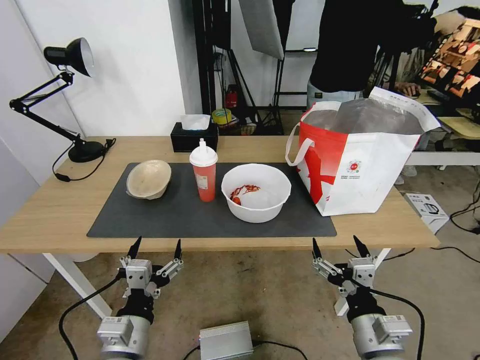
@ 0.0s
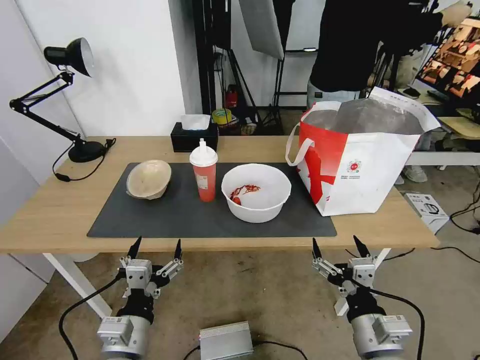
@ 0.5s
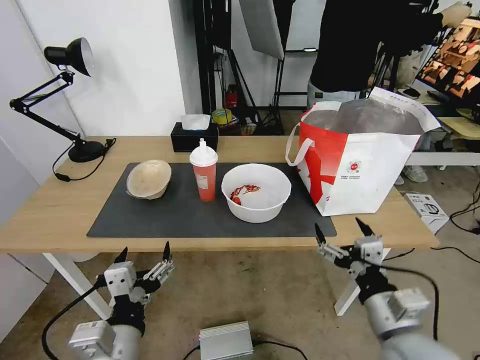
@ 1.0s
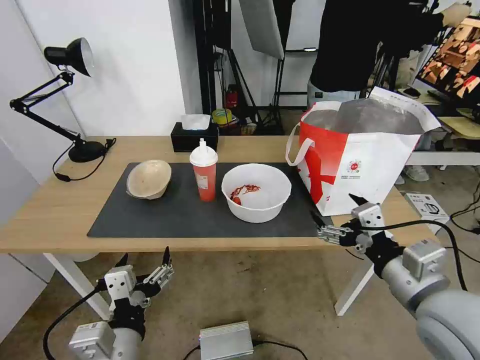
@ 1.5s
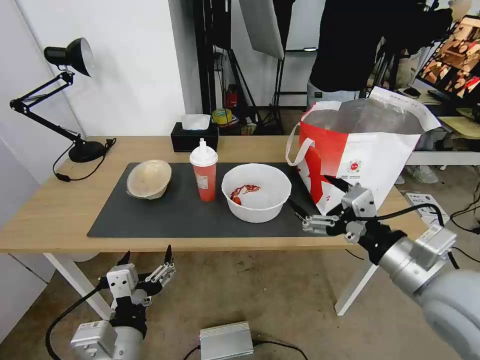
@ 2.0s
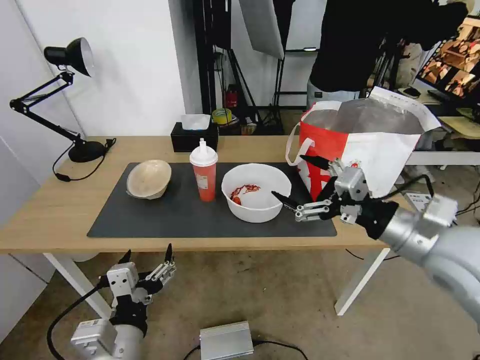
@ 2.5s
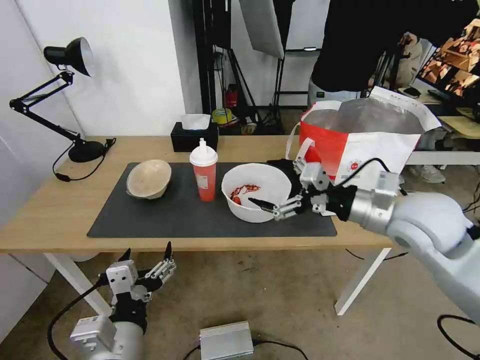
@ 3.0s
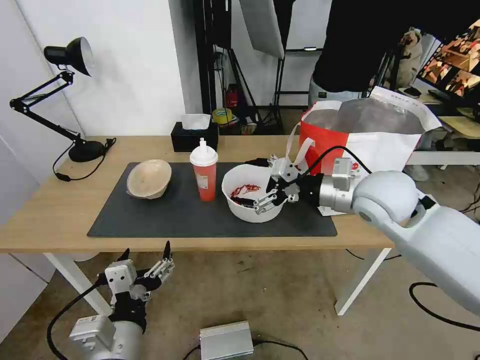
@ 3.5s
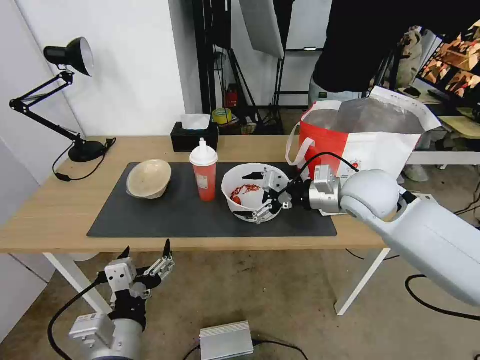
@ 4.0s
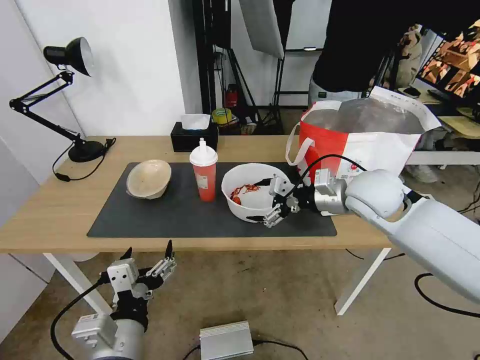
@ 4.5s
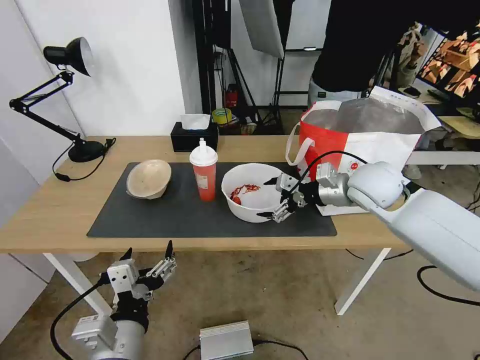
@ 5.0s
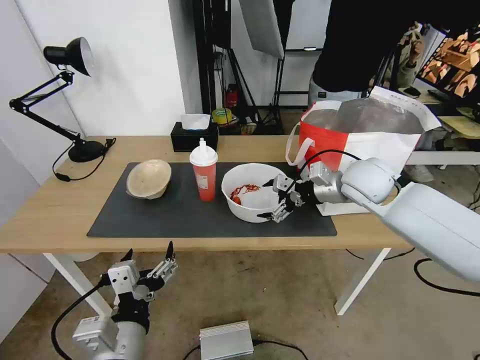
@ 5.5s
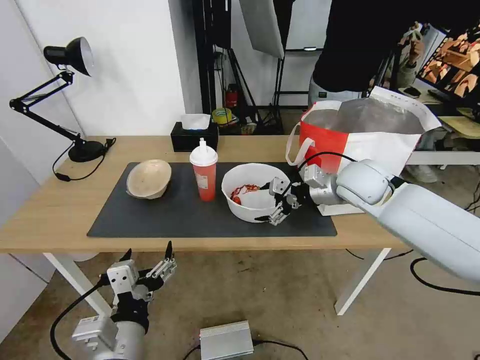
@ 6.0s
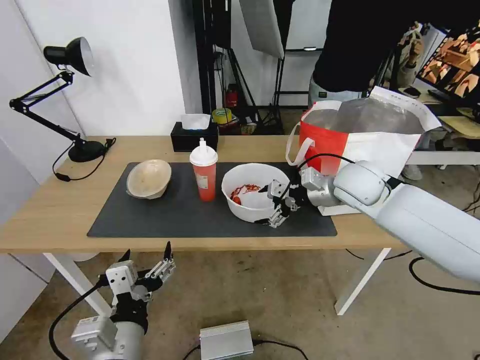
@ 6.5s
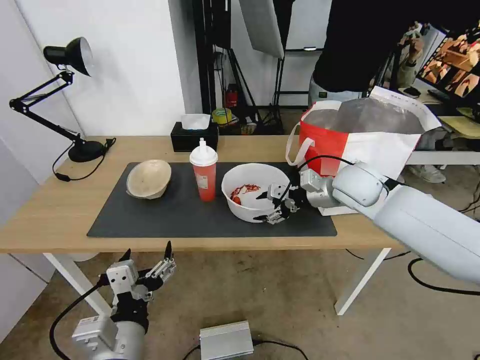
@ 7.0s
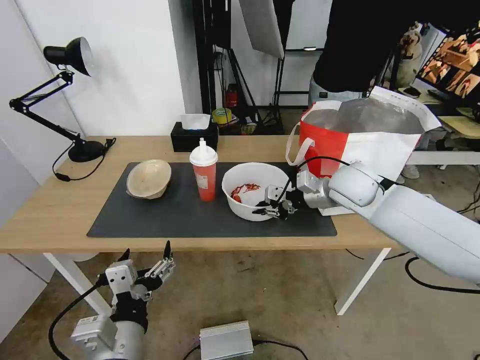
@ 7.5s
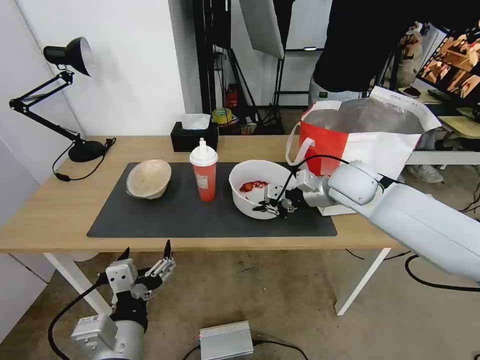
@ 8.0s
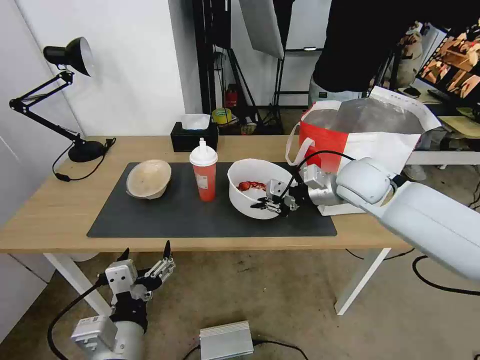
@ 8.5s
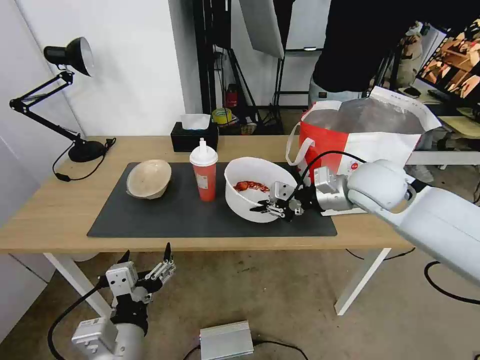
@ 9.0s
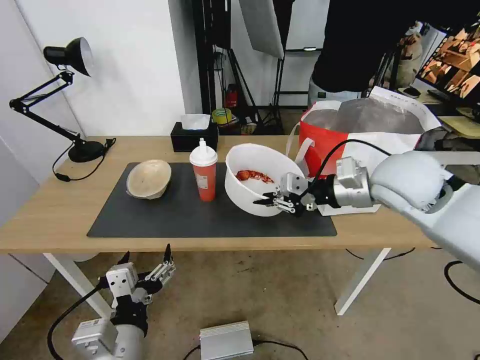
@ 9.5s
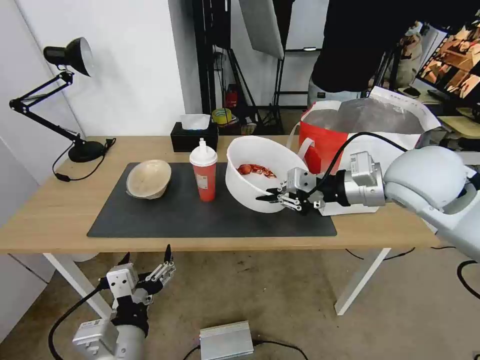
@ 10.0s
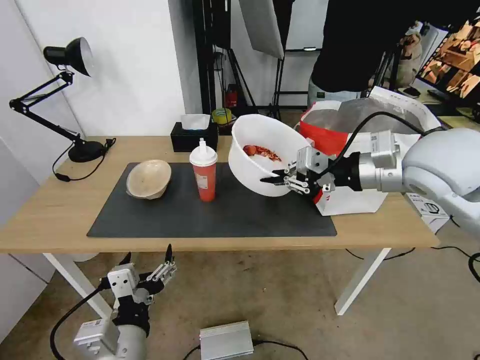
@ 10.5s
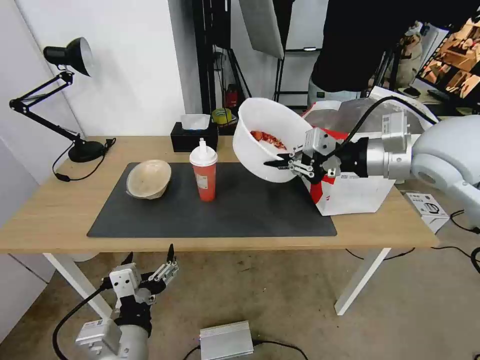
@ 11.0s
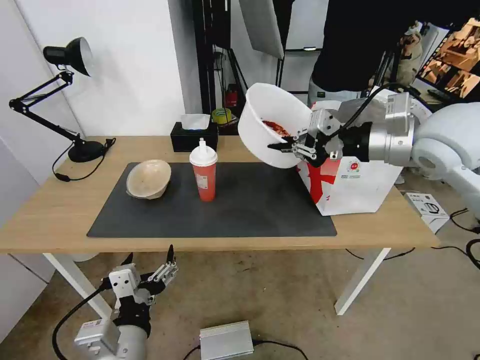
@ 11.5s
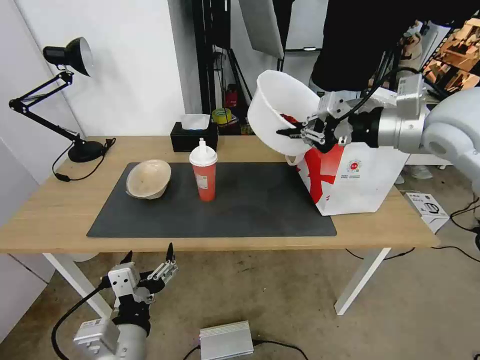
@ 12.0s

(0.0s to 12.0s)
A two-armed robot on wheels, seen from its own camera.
Task of the whole recording: Pick up the trash from the table and place it into the takeout bag.
2.0s - 4.0s: The right gripper heads forward, covering approximately 20 cm.
4.0s - 6.0s: The right gripper heads forward, covering roughly 5 cm.
6.0s - 8.0s: The right gripper closes.
8.0s - 10.0s: The right gripper moves upward and backward, about 15 cm.
10.0s - 12.0s: The right gripper moves upward, some 5 cm.

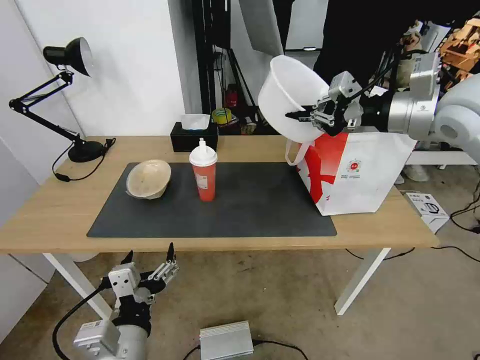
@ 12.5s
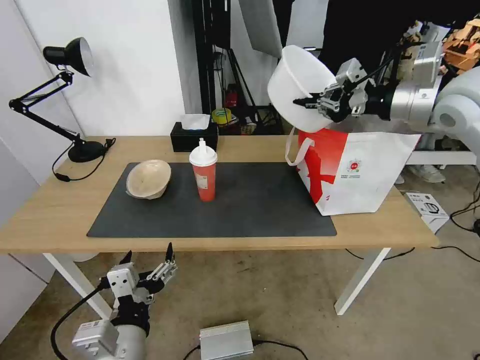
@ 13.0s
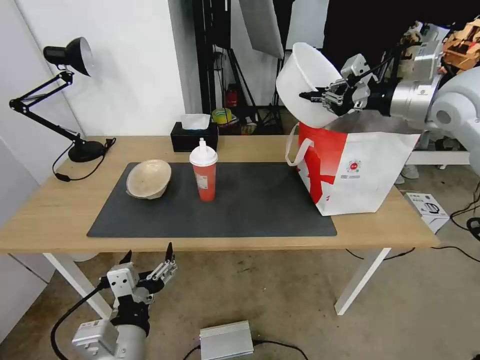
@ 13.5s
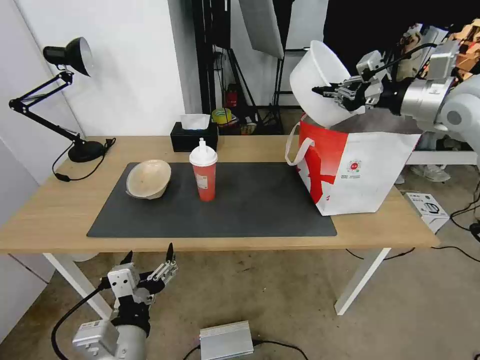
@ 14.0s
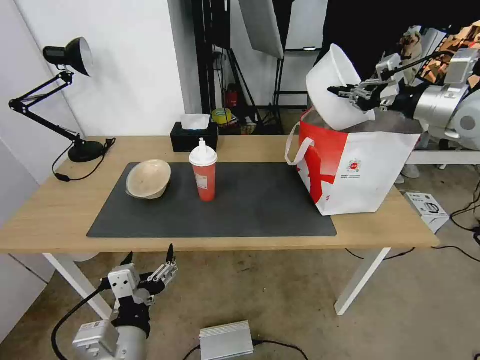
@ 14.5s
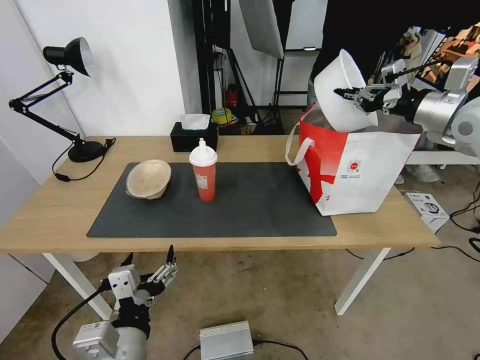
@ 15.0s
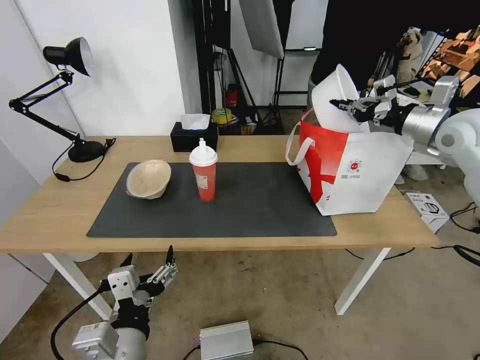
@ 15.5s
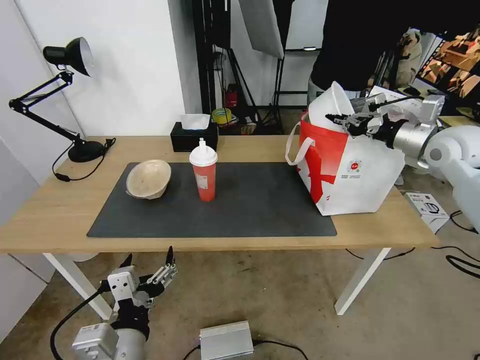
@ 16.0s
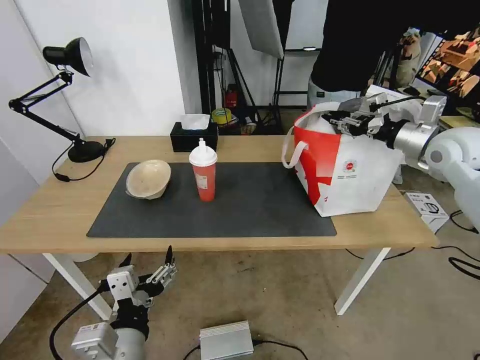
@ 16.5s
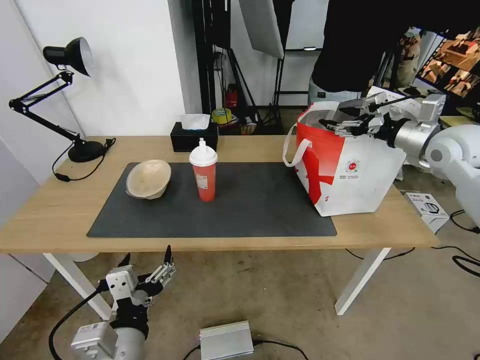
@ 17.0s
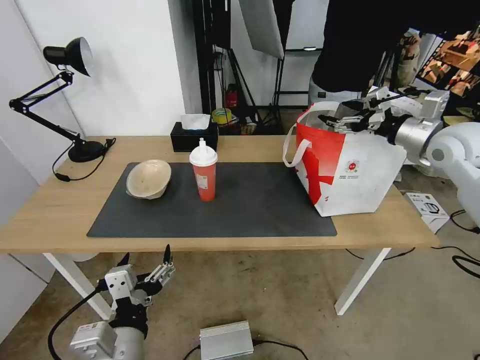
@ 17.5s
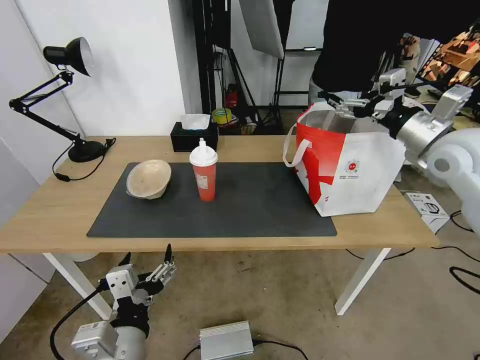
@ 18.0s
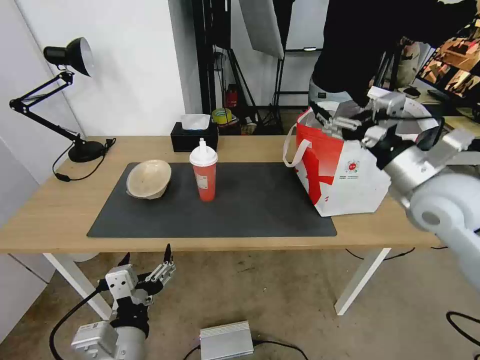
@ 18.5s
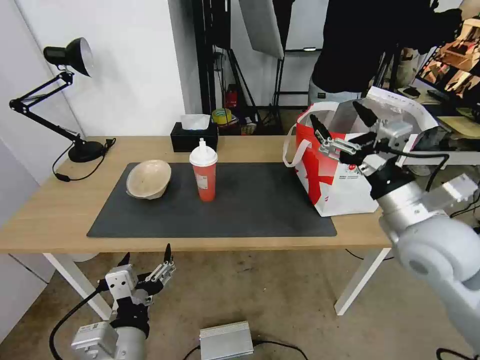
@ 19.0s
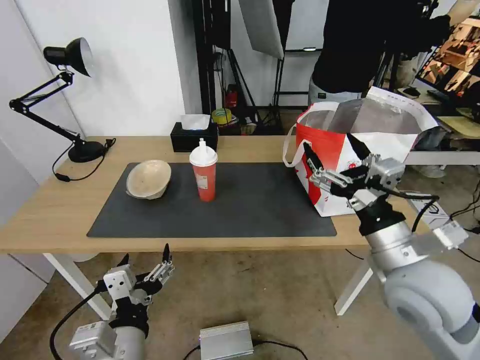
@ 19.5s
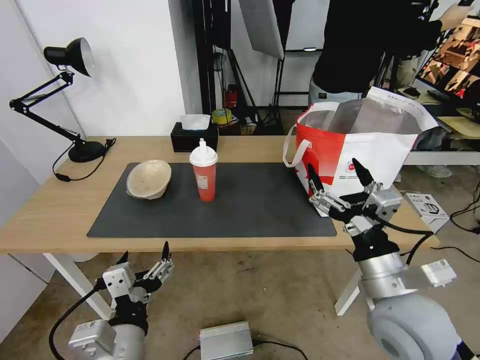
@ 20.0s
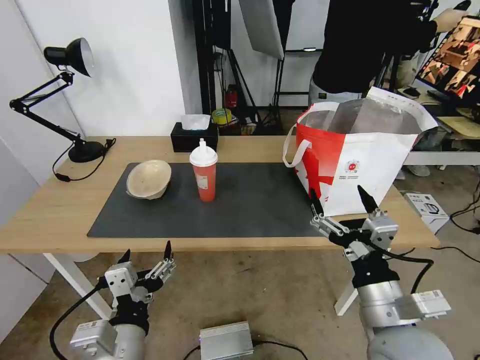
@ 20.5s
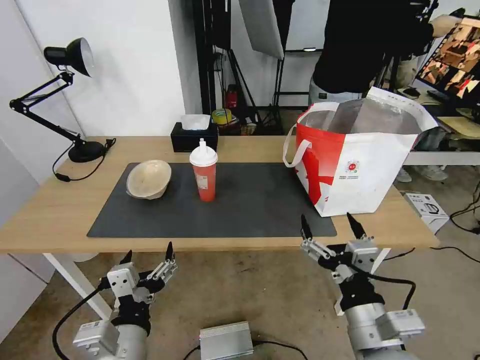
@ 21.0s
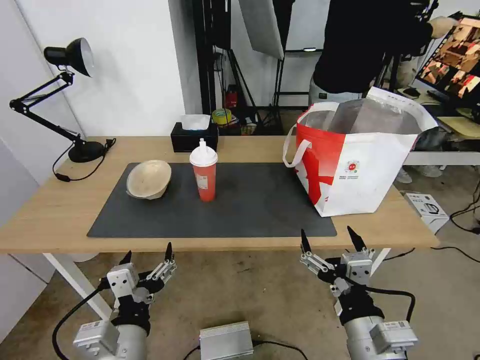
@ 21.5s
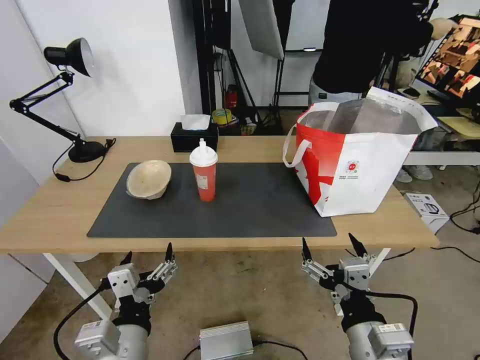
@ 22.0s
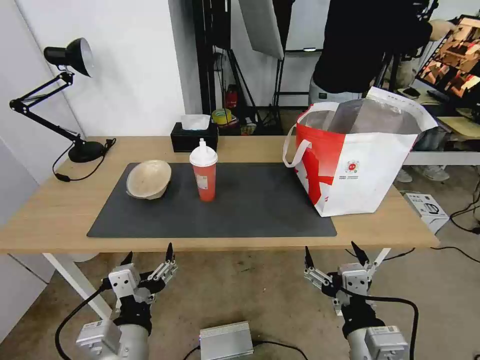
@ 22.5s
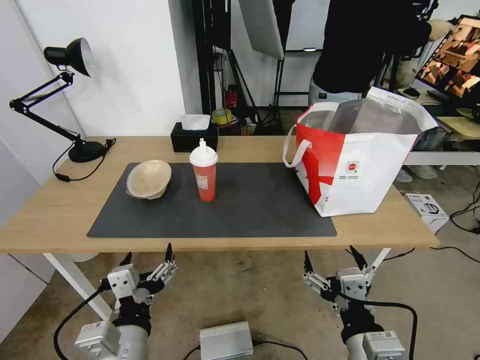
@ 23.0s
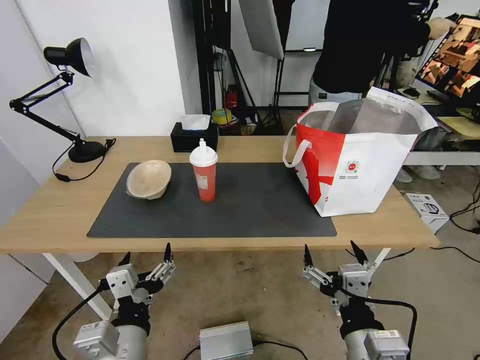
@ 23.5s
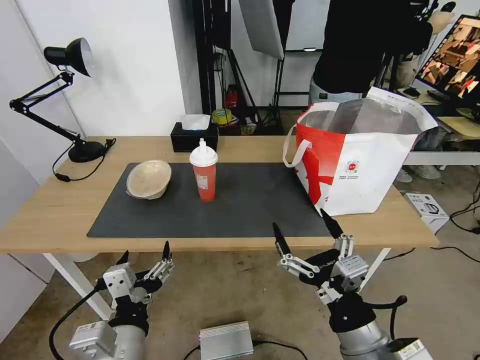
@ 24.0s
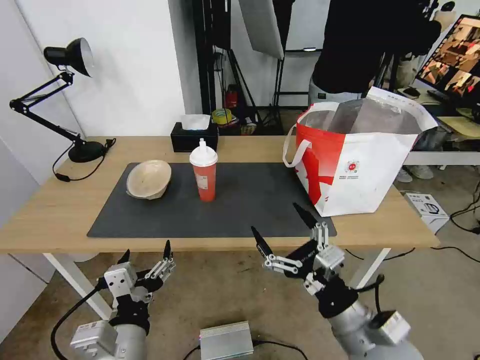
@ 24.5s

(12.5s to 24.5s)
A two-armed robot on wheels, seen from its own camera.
Task of the whole recording: Pick up the trash from the table and place it into the takeout bag.
12.5s - 14.5s: The right gripper shifts about 10 cm to the right and forward.
14.5s - 16.5s: The right gripper goes roughly 10 cm downward, and opens.
16.5s - 18.5s: The right gripper goes roughly 15 cm backward and to the left, and opens.
18.5s - 20.5s: The right gripper shifts roughly 25 cm backward, downward and to the left.
20.5s - 22.5s: The right gripper is displaced backward by about 5 cm.
22.5s - 24.5s: The right gripper travels forward by about 5 cm.

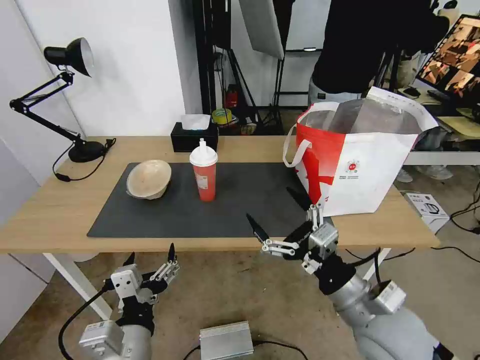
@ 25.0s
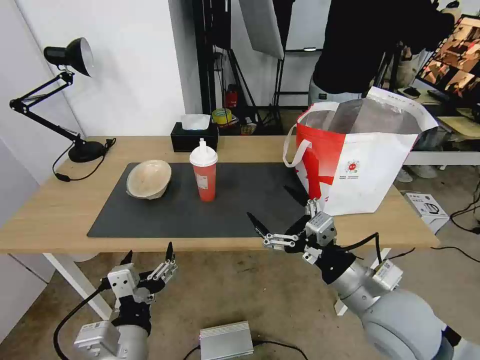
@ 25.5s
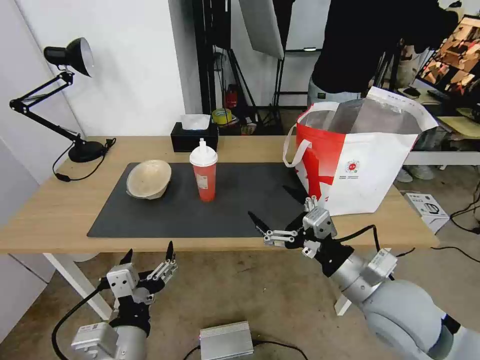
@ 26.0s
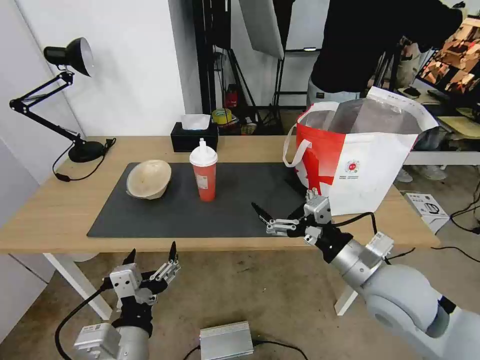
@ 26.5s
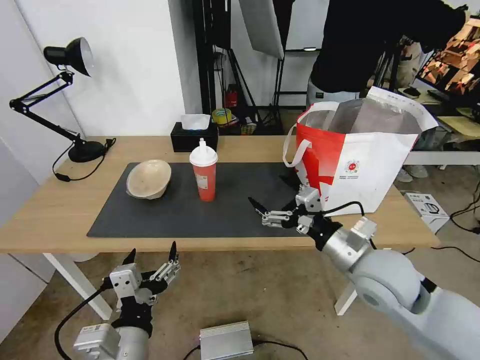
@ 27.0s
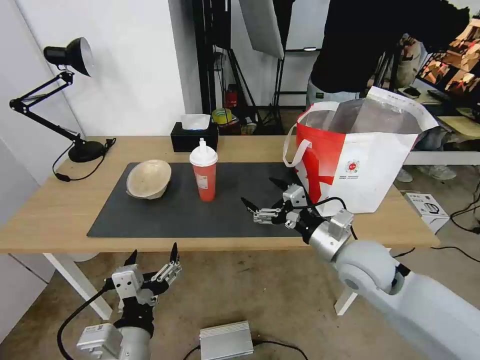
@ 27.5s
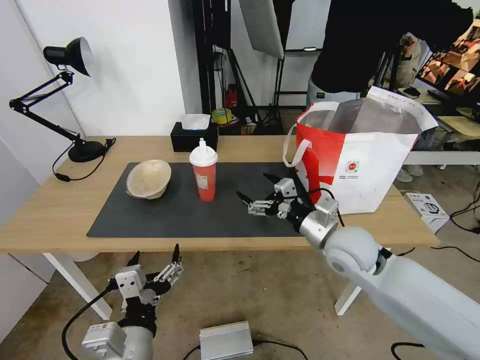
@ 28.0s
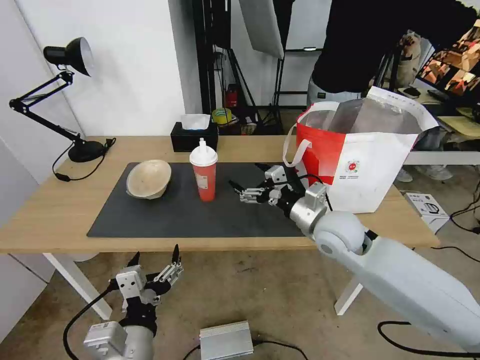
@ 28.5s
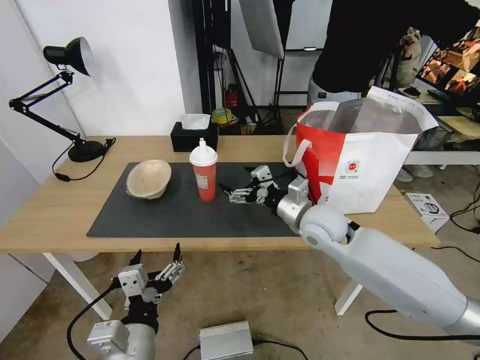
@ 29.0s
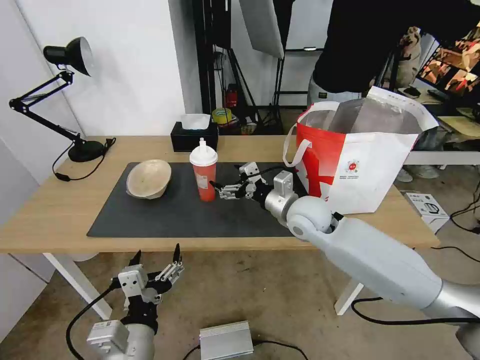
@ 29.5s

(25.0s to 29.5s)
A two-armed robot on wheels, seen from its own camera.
Task of the whole recording: Pick up the trash from the table and place it into the takeout bag.
25.0s - 27.0s: The right gripper travels forward by some 10 cm.
27.0s - 29.5s: The right gripper travels forward and to the left by roughly 15 cm.
